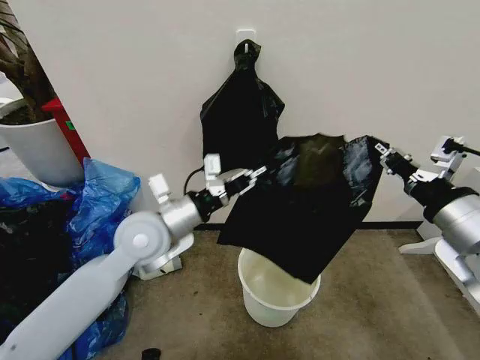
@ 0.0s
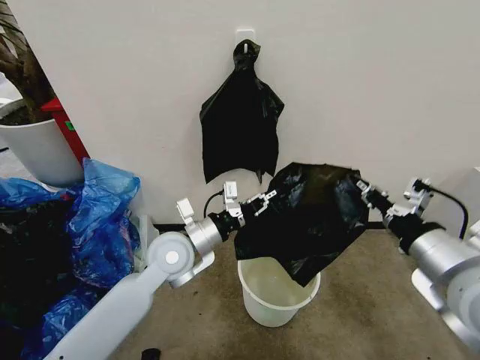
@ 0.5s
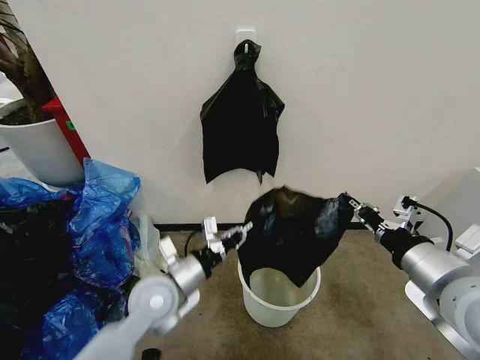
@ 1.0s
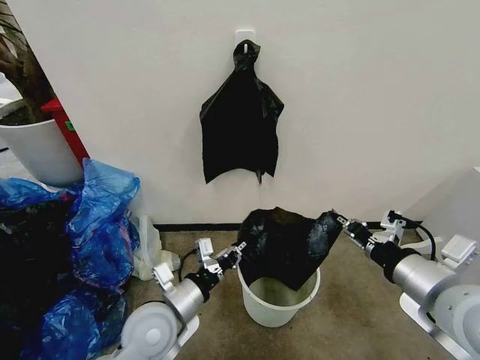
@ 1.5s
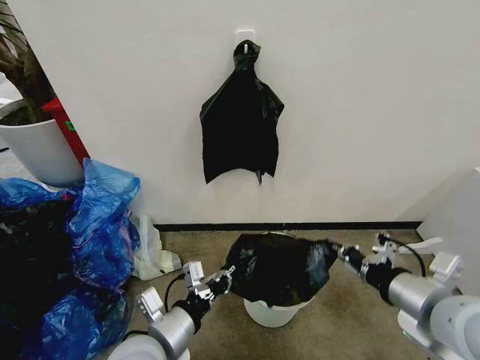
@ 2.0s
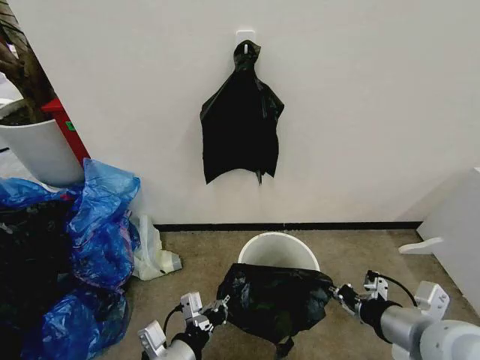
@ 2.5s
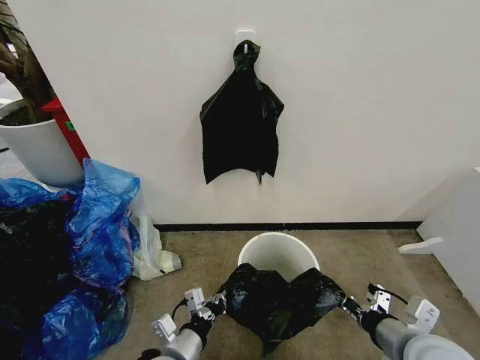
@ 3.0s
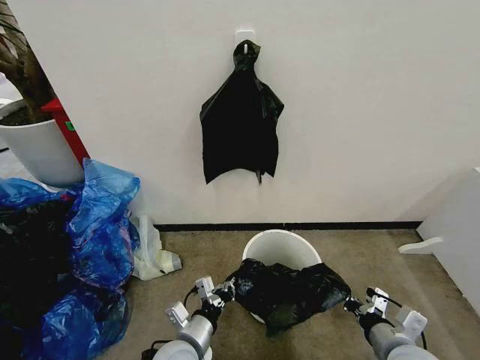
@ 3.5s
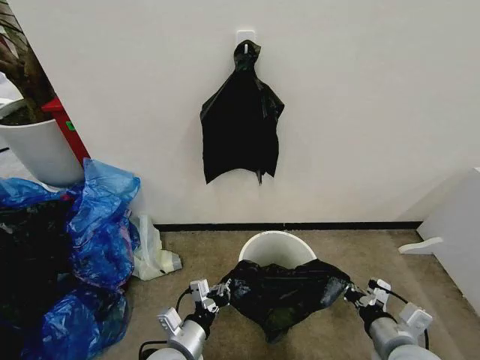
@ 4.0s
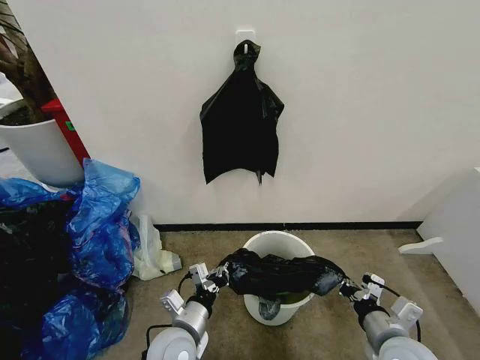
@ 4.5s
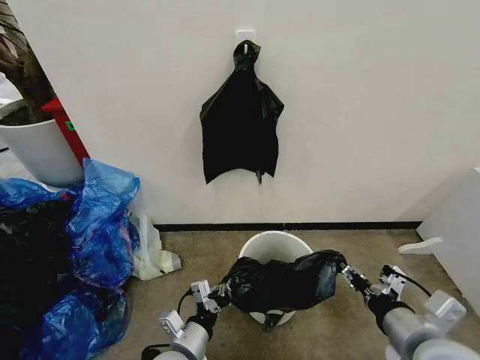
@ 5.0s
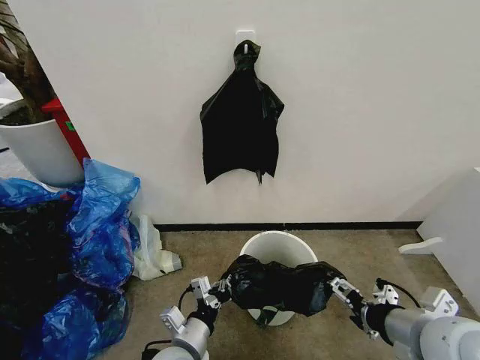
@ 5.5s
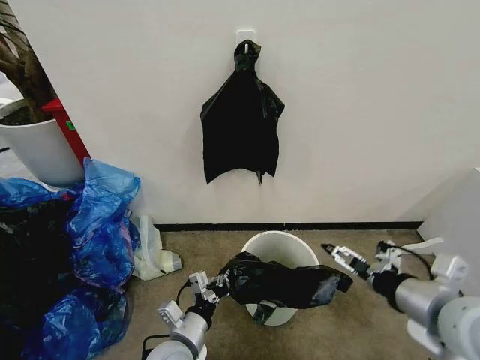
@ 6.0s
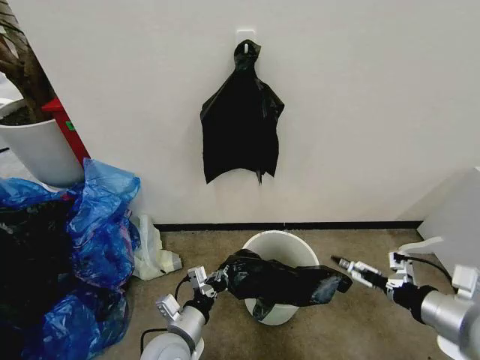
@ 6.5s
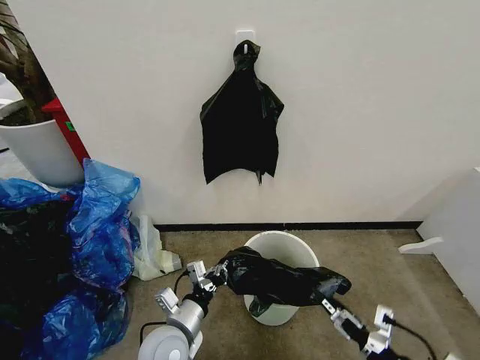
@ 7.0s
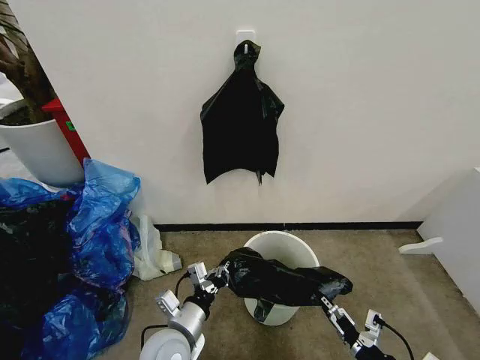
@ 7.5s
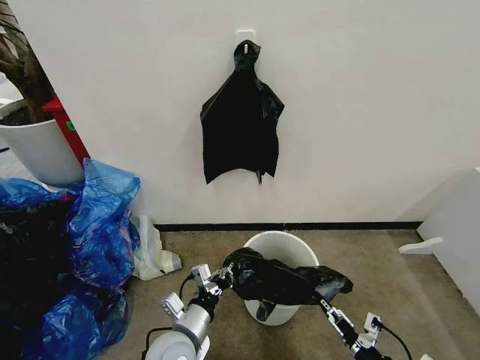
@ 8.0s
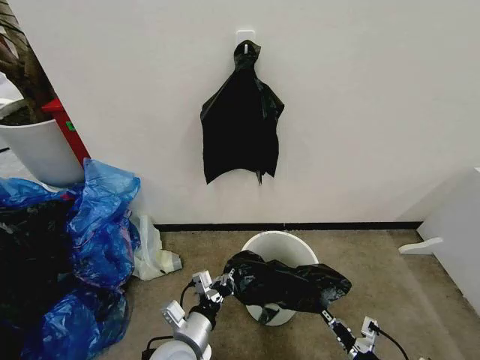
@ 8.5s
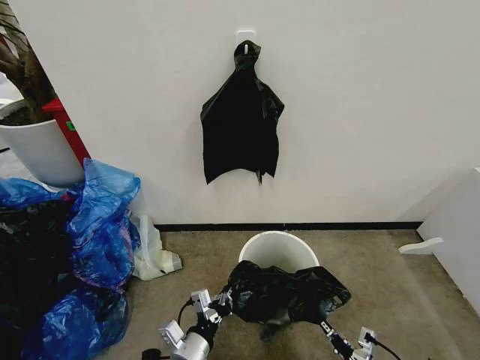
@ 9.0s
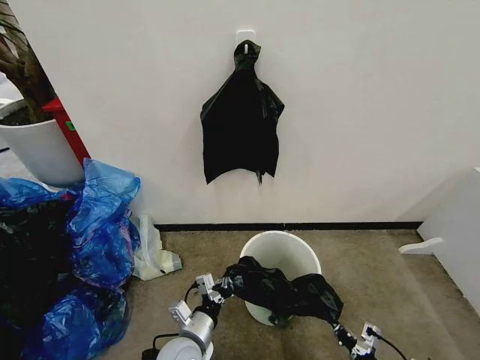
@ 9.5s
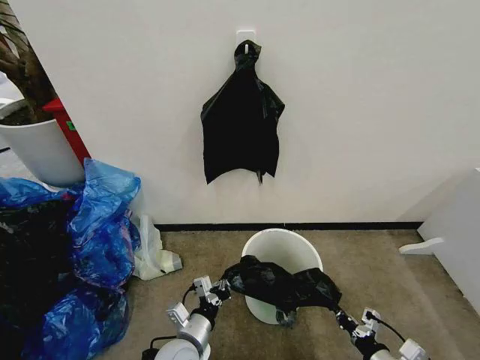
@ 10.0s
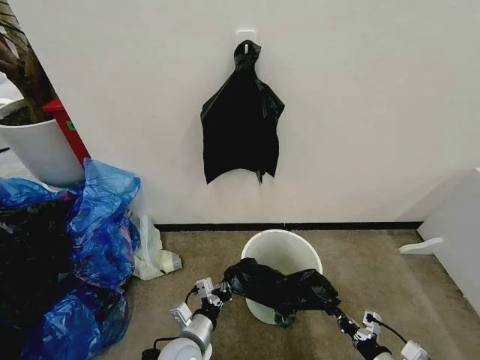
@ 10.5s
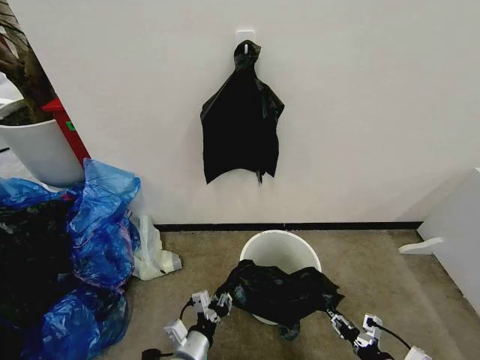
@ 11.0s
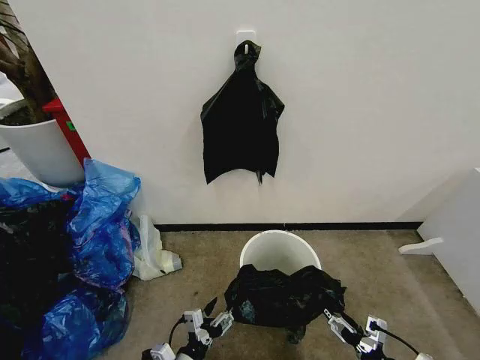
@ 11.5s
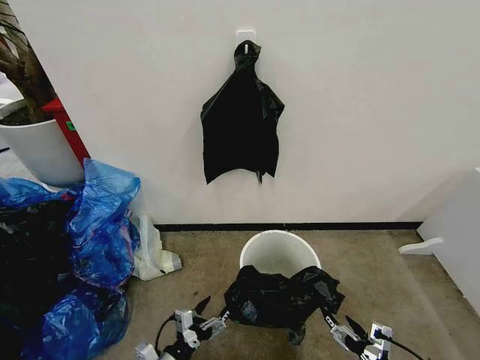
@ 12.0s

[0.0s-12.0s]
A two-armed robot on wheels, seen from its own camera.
Task of the whole recording: Place the garbage bag over the trash bin.
0.0s to 2.0s: The right gripper is displaced downward by approximately 10 cm. Meanwhile the left gripper is displaced backward and downward by some 20 cm.
2.0s to 4.0s: The grippers both shift downward by roughly 15 cm.
4.0s to 6.0s: The right gripper shifts approximately 15 cm upward, and opens its fingers.
6.0s to 8.0s: The right gripper is displaced downward and backward by roughly 25 cm, and closes.
8.0s to 10.0s: Both grippers move downward, some 5 cm. The right gripper closes its fingers.
10.0s to 12.0s: The right gripper travels upward and backward by about 10 cm, and opens. The left gripper moves to the left and backward, some 10 cm, and opens its fingers.

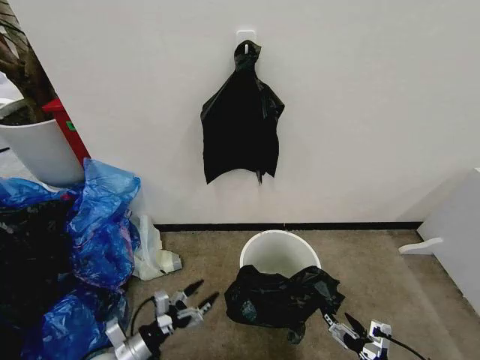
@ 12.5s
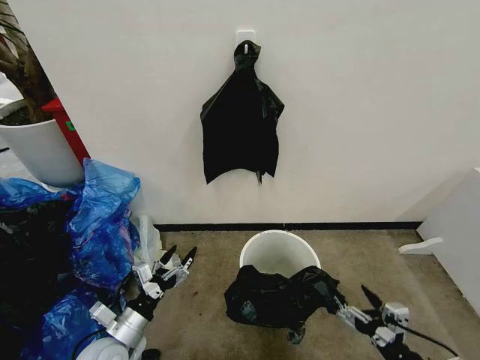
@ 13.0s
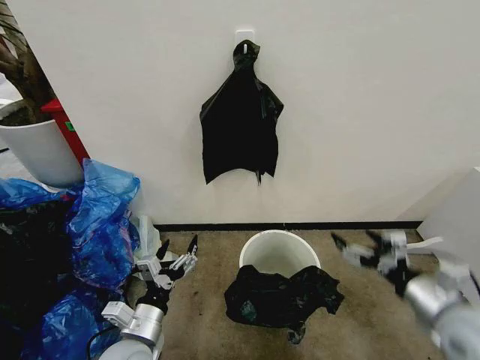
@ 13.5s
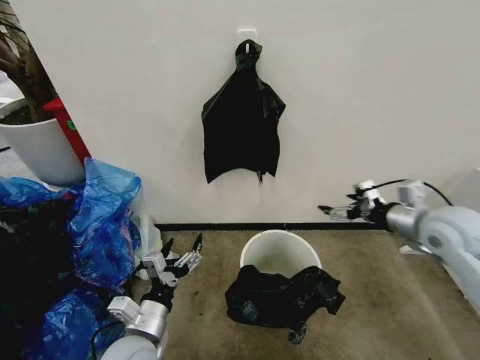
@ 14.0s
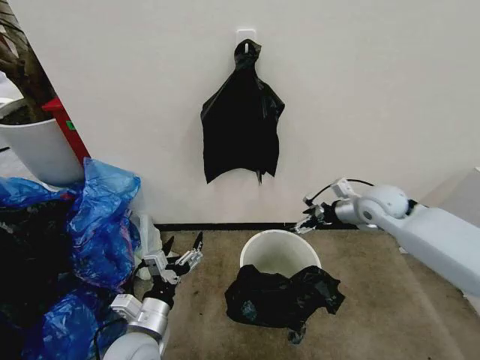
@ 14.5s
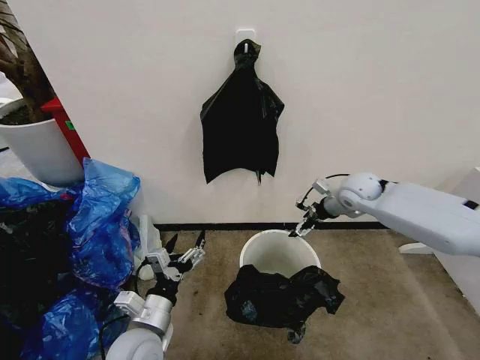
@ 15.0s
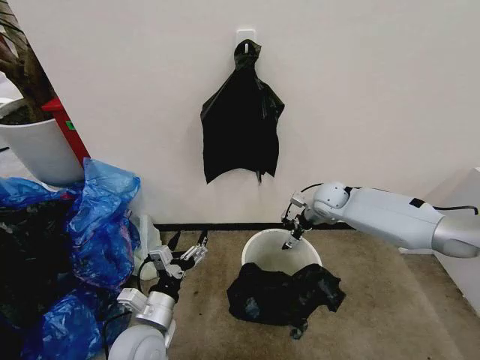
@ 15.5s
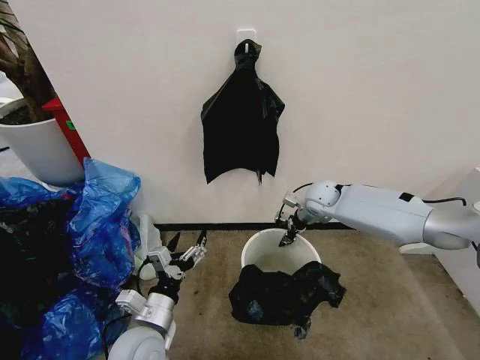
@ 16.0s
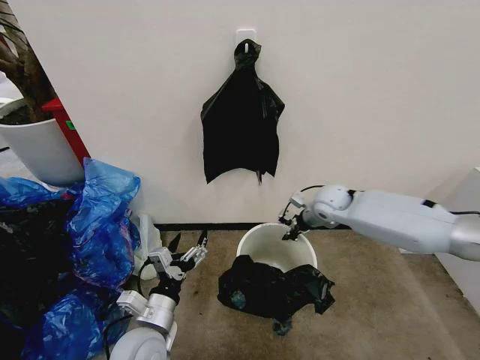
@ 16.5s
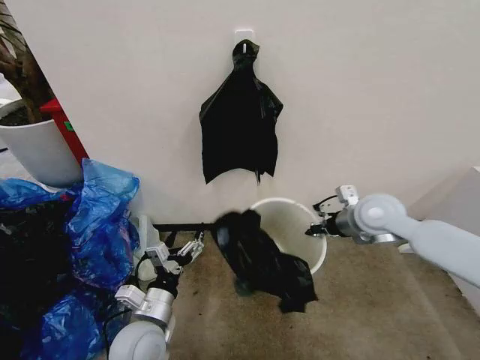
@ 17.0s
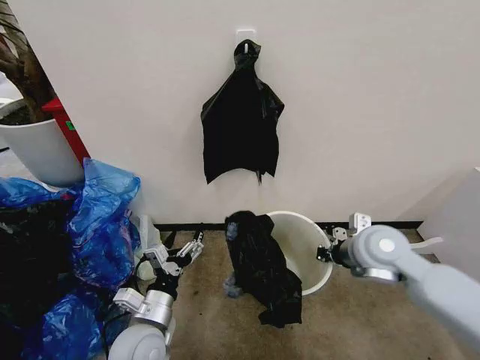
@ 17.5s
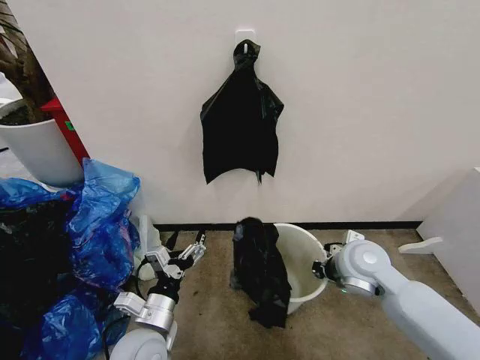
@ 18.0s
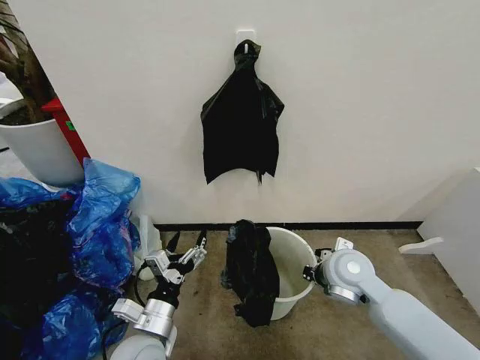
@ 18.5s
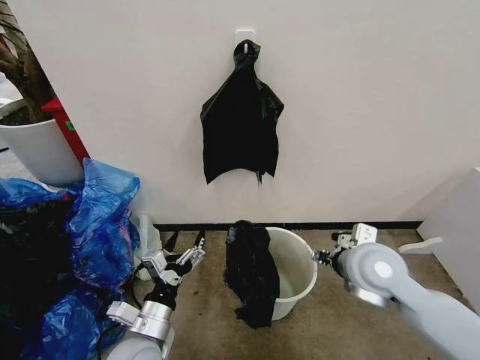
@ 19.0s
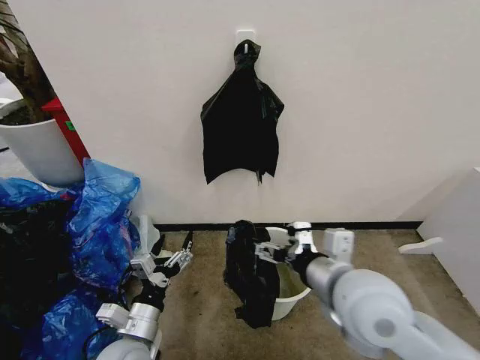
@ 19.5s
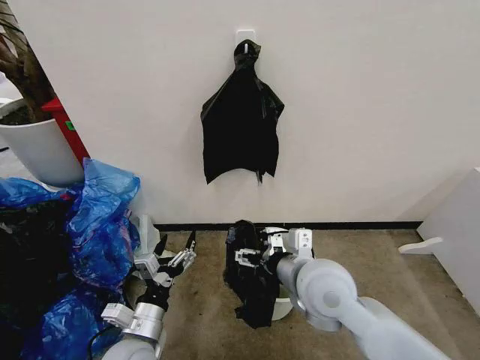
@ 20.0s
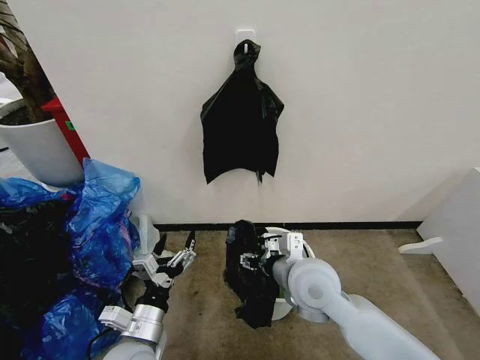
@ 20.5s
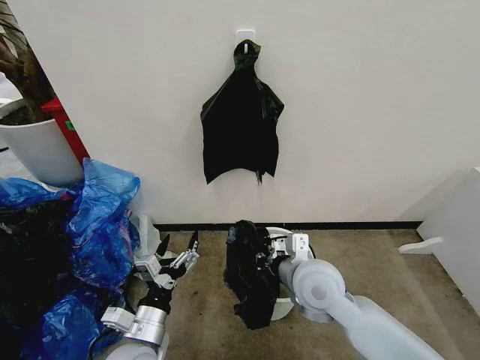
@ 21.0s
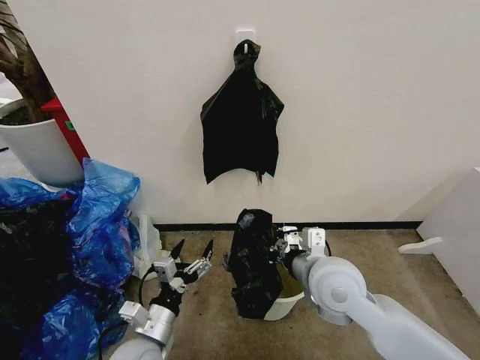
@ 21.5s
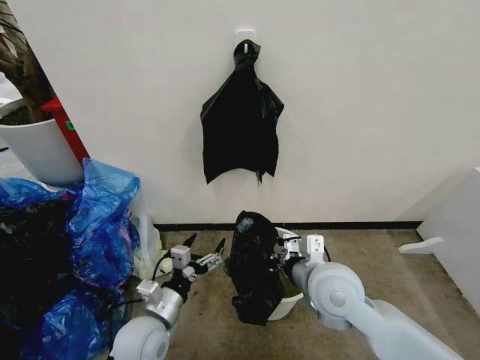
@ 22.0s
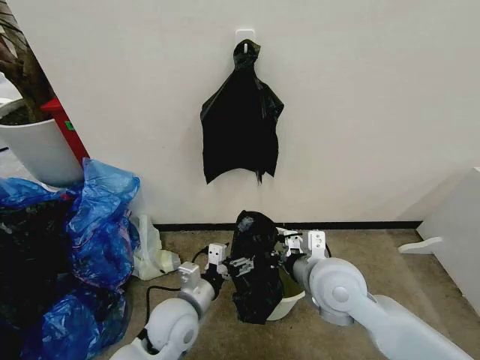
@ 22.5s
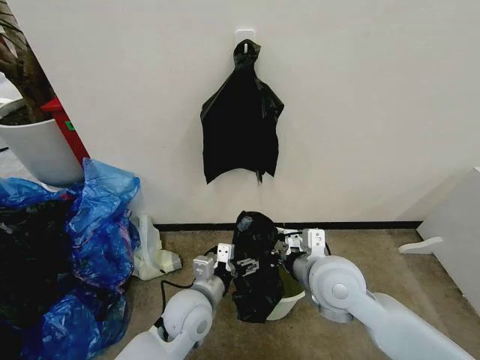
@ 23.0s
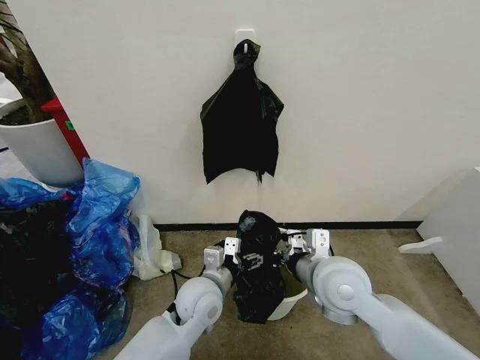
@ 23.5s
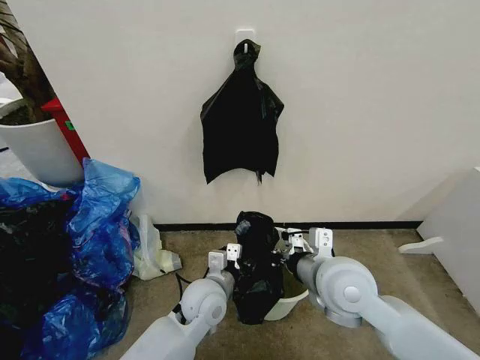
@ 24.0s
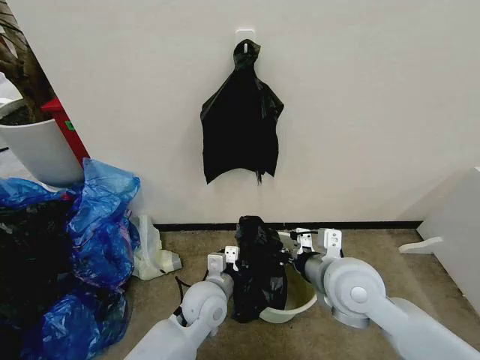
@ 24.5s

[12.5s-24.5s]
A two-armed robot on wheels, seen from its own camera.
Task of the whole recording: Place the garbage bag over the trash bin.
12.5s to 14.5s: The left gripper heads upward and to the right, covering some 15 cm; the right gripper is displaced forward and upward by some 40 cm.
14.5s to 16.5s: The right gripper is displaced to the left, forward and downward by approximately 10 cm, and closes.
16.5s to 18.5s: The right gripper heads backward, covering some 20 cm.
18.5s to 20.5s: The right gripper heads to the left, covering approximately 10 cm, goes upward and returns, some 10 cm each way, and opens.
20.5s to 22.5s: The right gripper closes its fingers. The left gripper travels forward and to the right by approximately 10 cm.
22.5s to 24.5s: The left gripper moves to the right, about 5 cm, and closes.

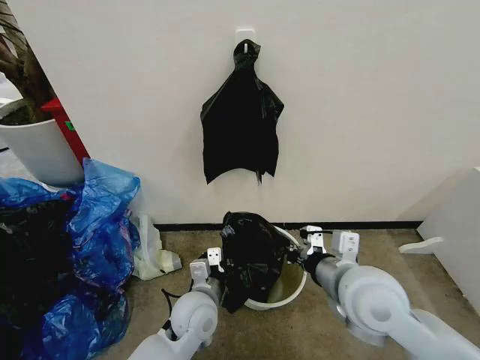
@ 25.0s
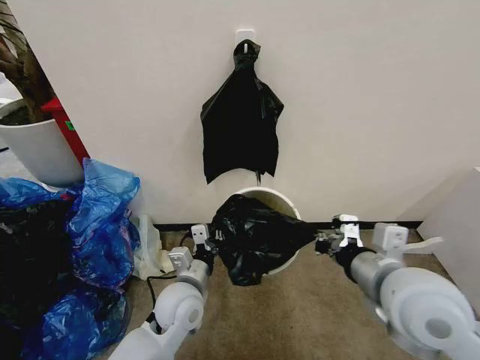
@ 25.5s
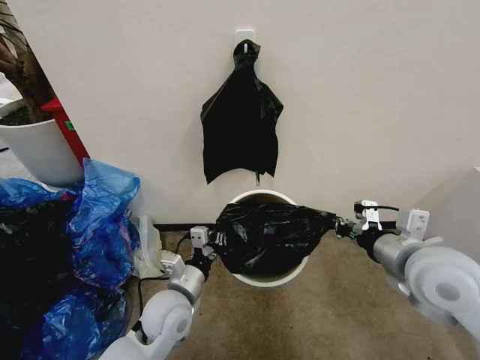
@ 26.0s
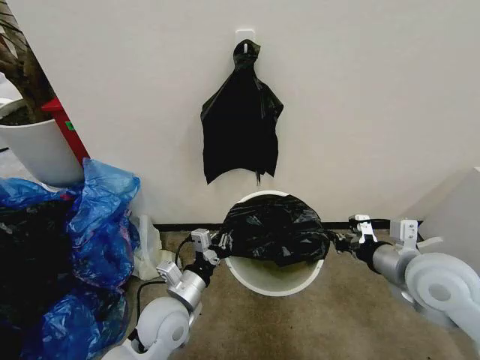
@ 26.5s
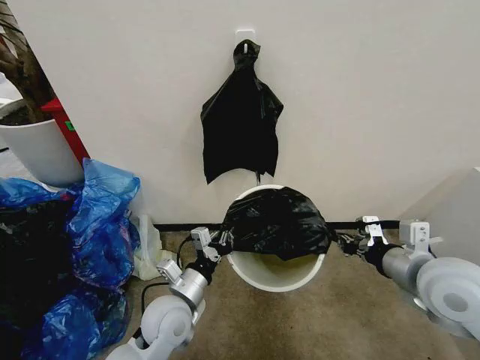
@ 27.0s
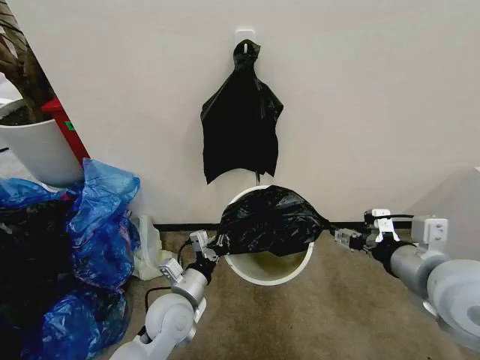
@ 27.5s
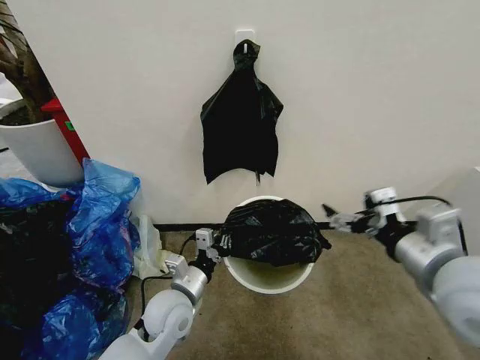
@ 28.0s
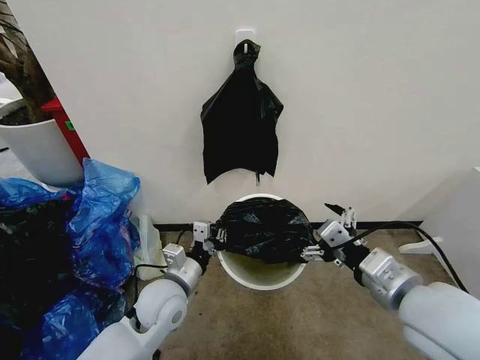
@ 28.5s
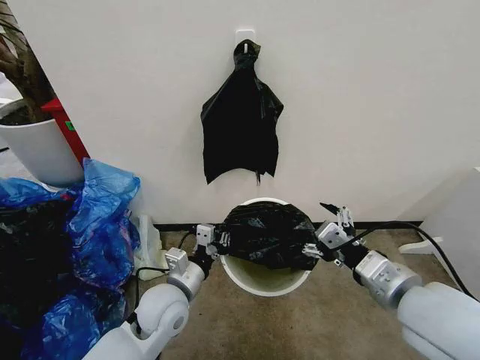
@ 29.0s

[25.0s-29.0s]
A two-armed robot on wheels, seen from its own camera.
Task of the whole recording: Place the garbage bag over the trash bin.
25.0s to 27.0s: The right gripper travels to the right by approximately 10 cm; the left gripper changes place by approximately 5 cm.
27.0s to 29.0s: The right gripper travels to the left and backward by about 10 cm, and opens up.
